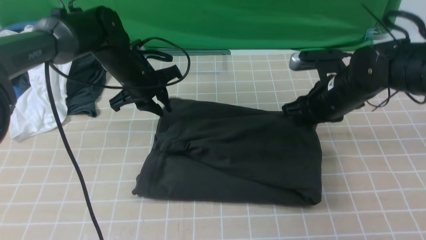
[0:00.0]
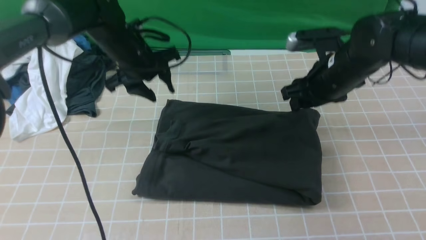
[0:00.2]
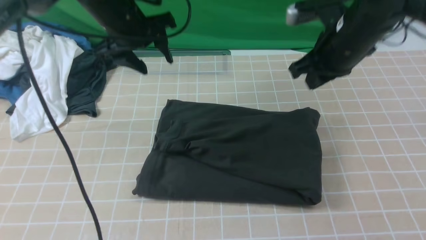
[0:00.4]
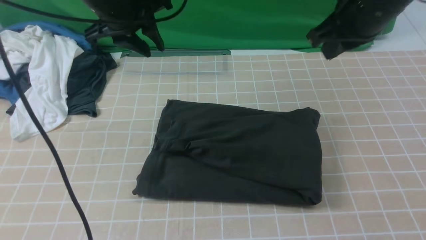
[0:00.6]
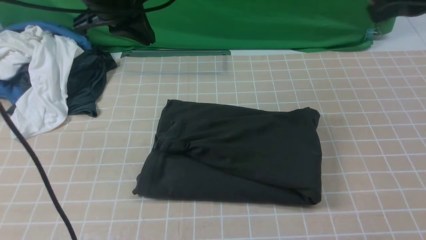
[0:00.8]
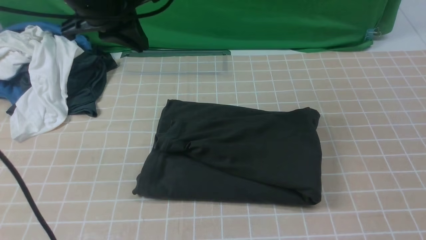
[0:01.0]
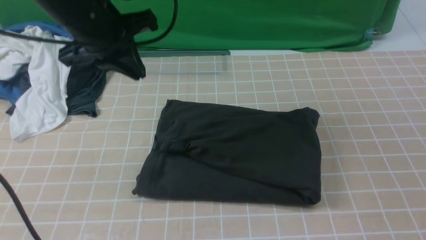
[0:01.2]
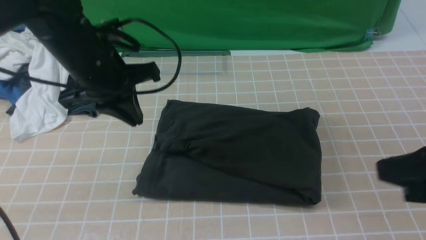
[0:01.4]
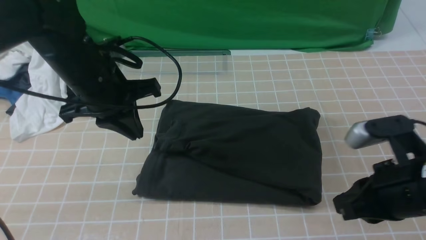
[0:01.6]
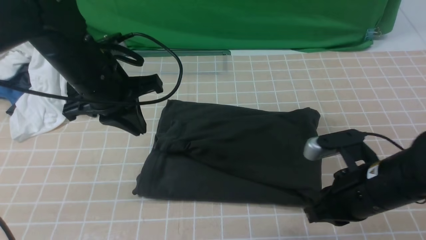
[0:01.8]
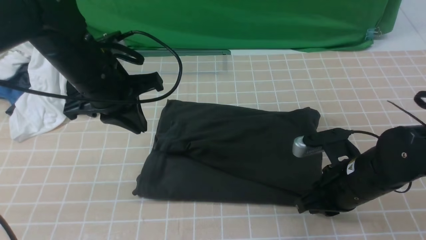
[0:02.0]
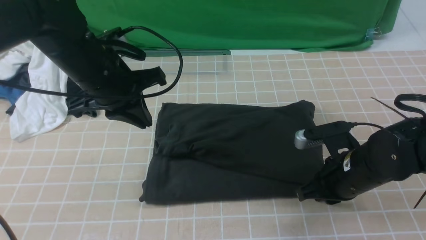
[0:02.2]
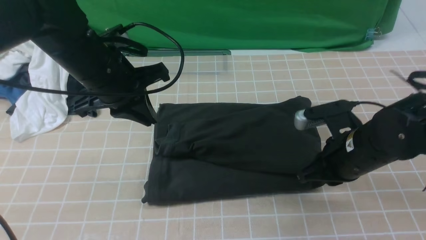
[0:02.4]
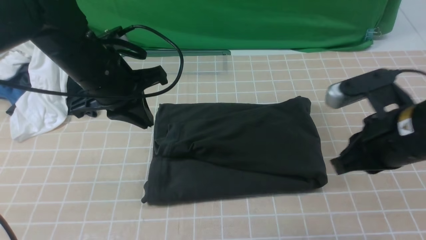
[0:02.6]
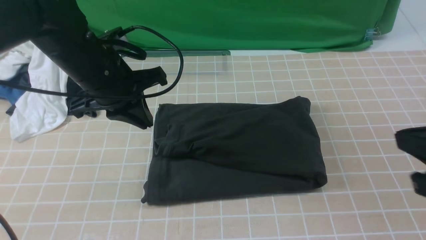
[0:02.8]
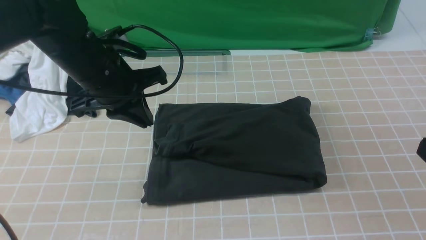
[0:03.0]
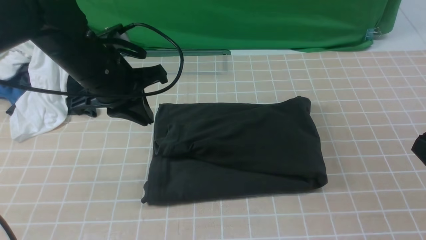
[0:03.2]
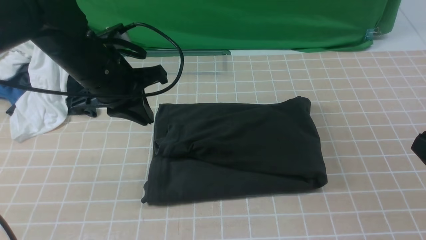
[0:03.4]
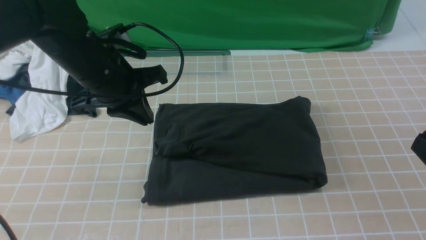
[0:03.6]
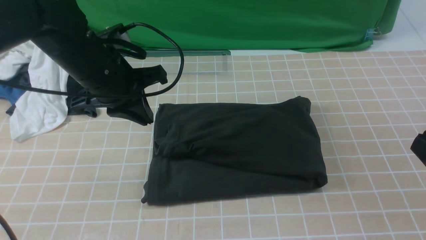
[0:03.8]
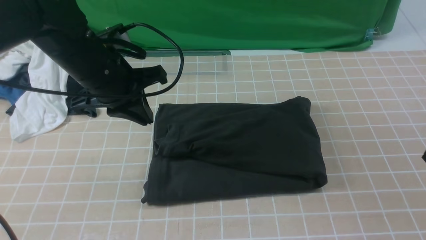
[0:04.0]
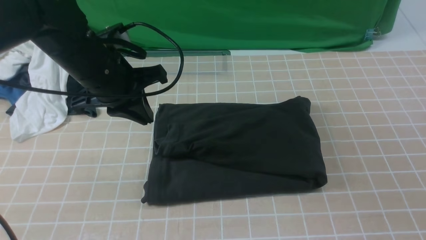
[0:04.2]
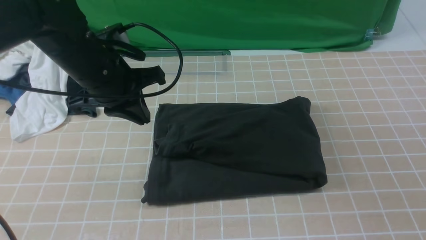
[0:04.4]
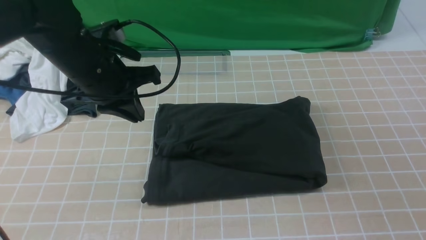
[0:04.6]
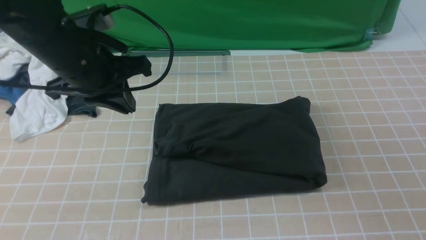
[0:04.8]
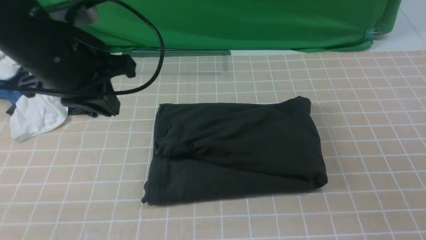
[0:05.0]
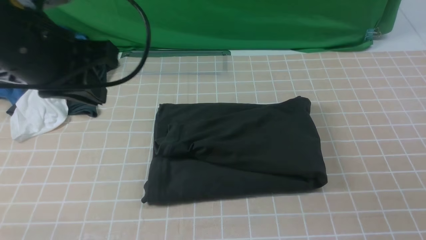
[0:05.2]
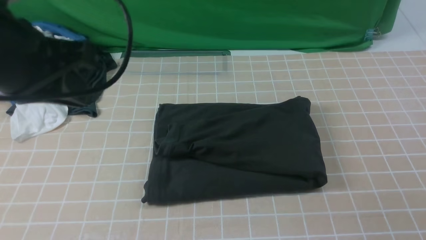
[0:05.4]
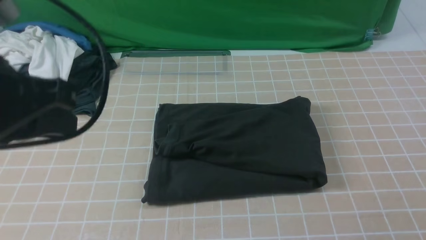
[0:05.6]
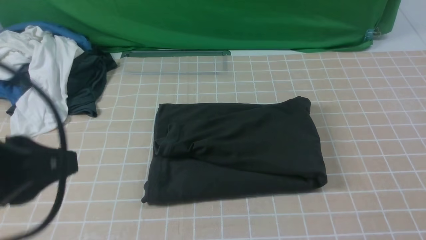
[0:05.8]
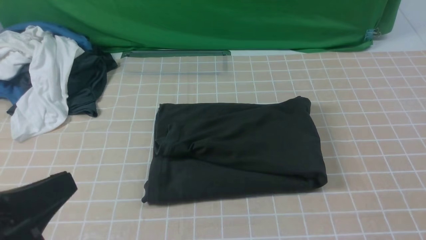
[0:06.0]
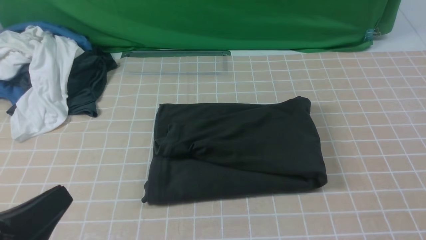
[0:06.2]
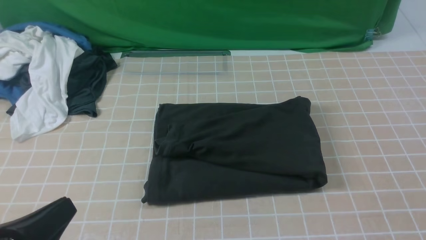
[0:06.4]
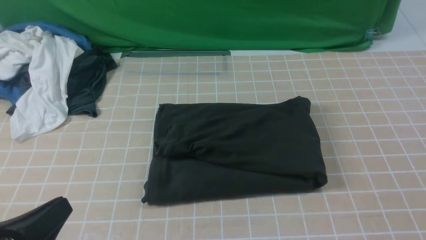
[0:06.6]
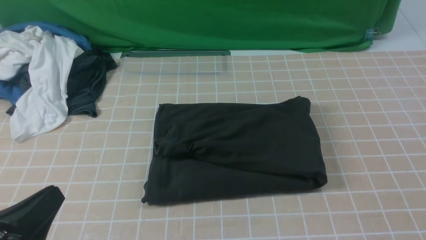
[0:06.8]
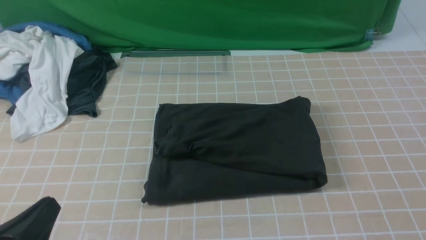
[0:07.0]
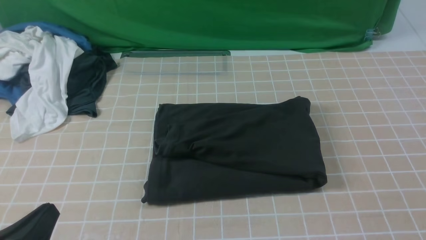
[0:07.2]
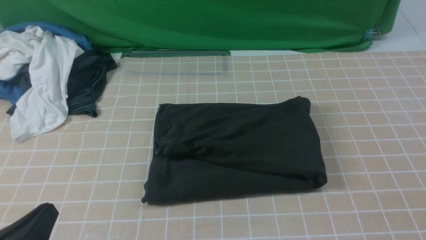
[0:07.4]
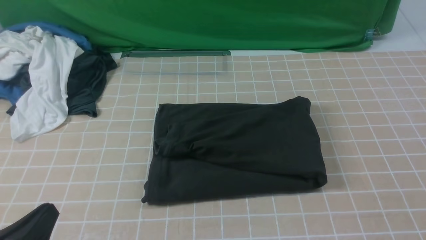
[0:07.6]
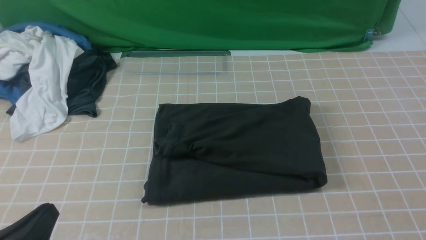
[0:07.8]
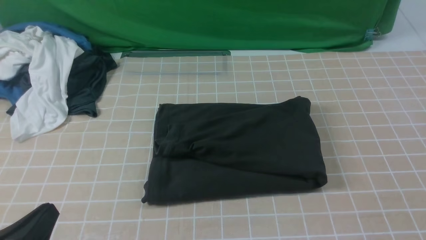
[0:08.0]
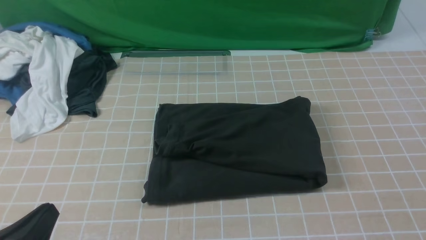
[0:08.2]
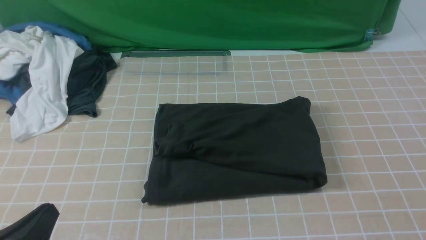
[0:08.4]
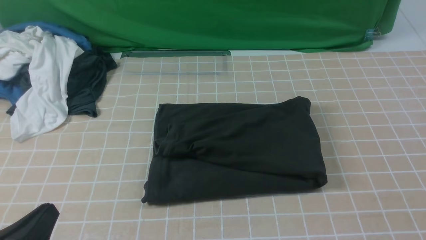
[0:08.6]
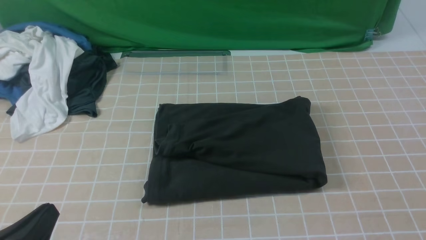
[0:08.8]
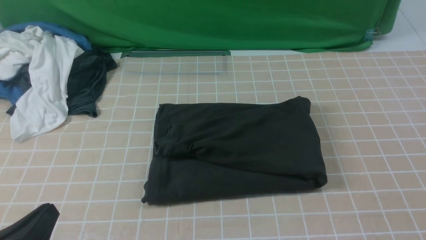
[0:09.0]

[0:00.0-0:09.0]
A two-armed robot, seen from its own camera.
0:00.0 to 0:01.6: The left gripper heads backward and upward, covering roughly 15 cm, and closes, while the right gripper travels backward by about 20 cm, and closes.
0:01.6 to 0:03.0: The right gripper moves backward and to the right, some 10 cm.
0:04.4 to 0:06.0: The left gripper shifts about 25 cm backward.
0:06.0 to 0:07.6: The left gripper shifts approximately 10 cm downward.
0:07.6 to 0:09.0: Both grippers stay about where they are.

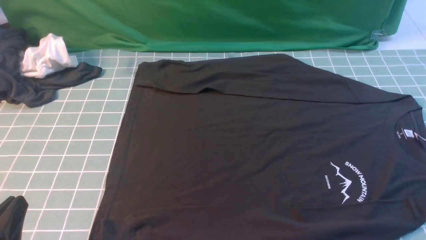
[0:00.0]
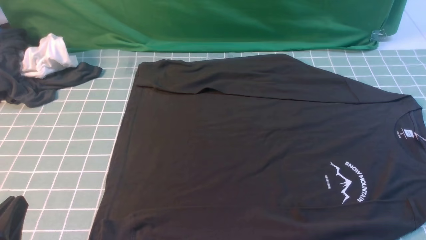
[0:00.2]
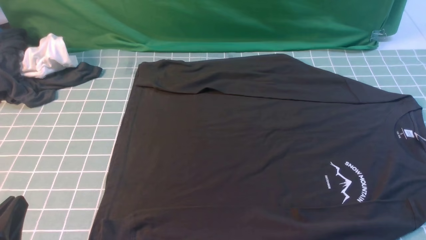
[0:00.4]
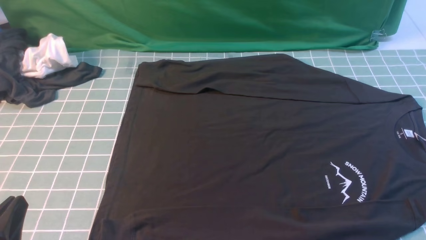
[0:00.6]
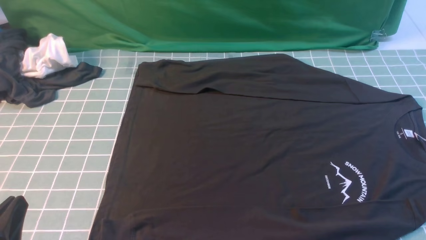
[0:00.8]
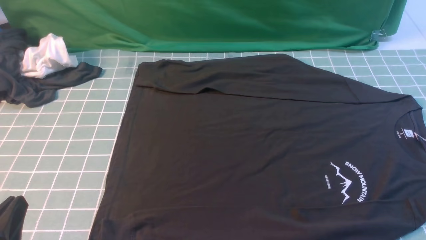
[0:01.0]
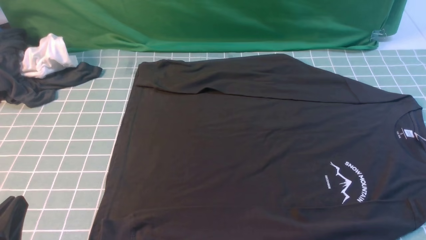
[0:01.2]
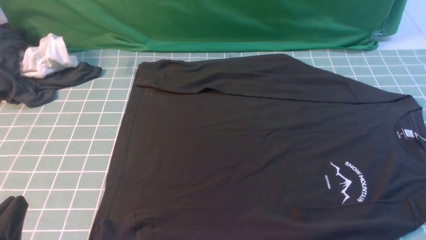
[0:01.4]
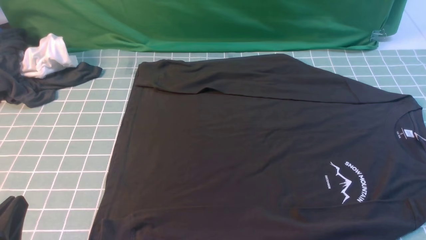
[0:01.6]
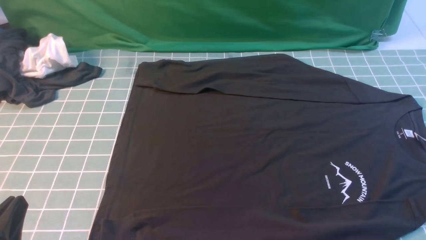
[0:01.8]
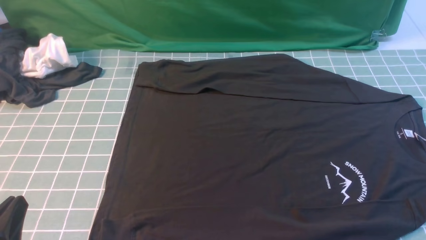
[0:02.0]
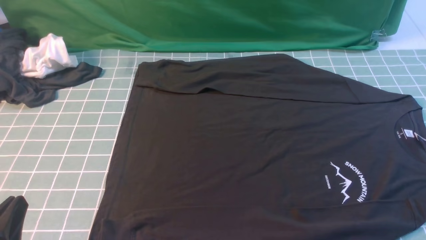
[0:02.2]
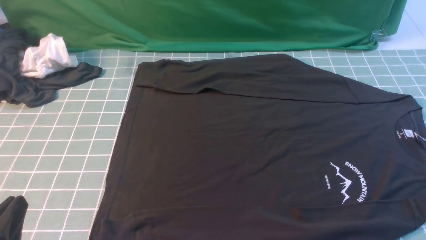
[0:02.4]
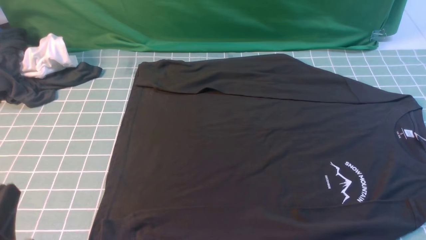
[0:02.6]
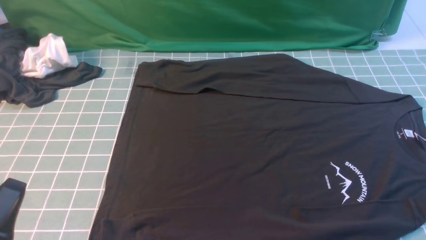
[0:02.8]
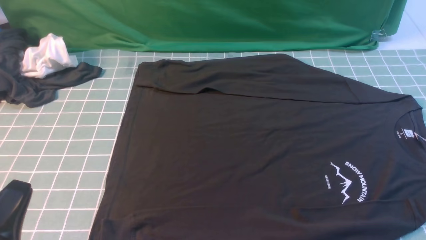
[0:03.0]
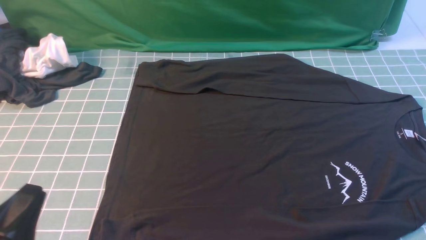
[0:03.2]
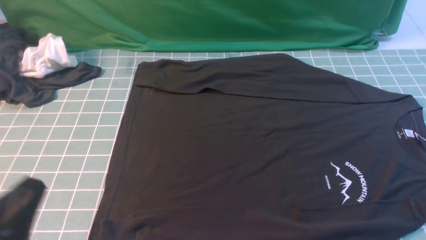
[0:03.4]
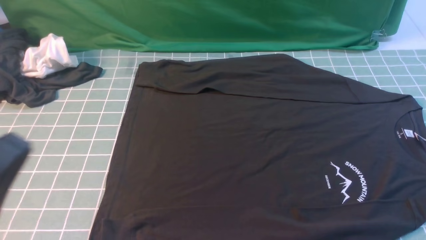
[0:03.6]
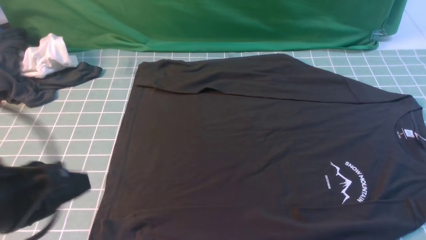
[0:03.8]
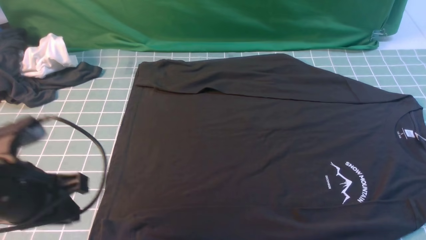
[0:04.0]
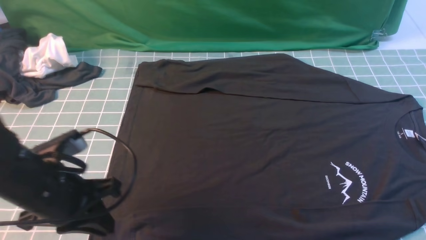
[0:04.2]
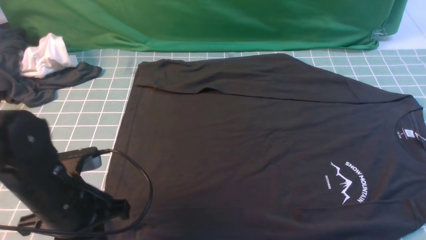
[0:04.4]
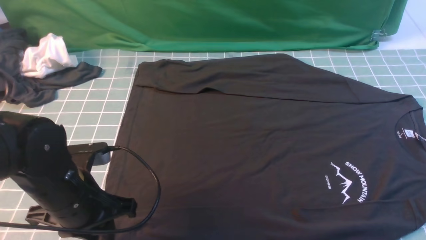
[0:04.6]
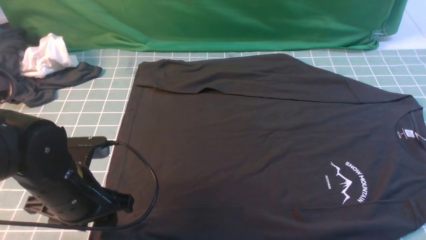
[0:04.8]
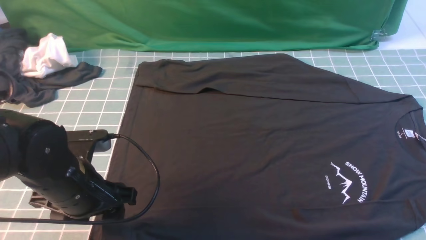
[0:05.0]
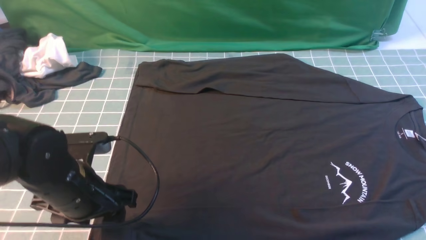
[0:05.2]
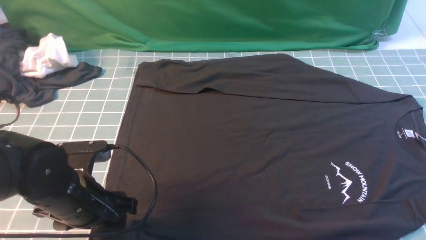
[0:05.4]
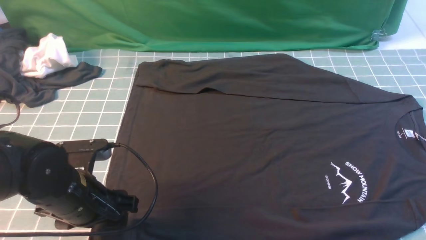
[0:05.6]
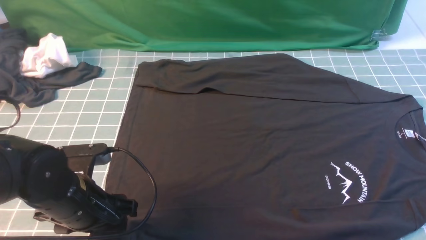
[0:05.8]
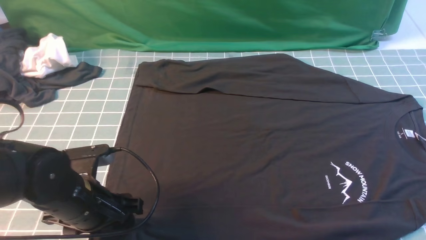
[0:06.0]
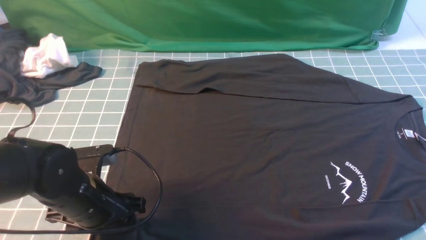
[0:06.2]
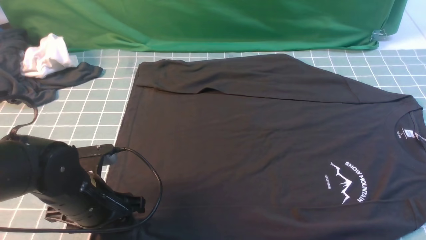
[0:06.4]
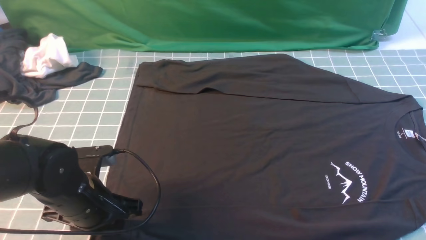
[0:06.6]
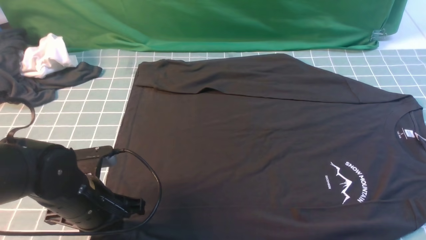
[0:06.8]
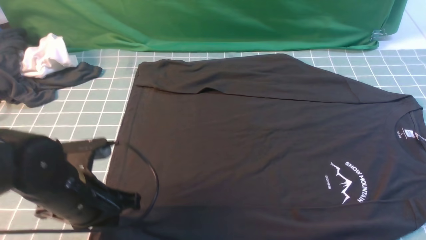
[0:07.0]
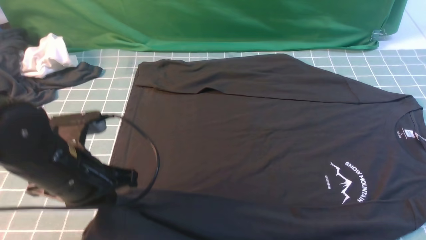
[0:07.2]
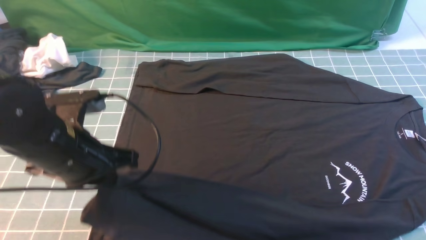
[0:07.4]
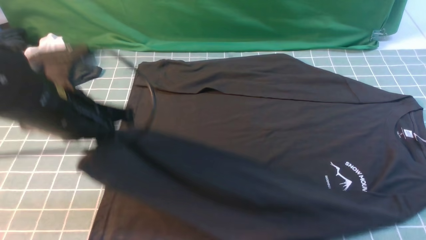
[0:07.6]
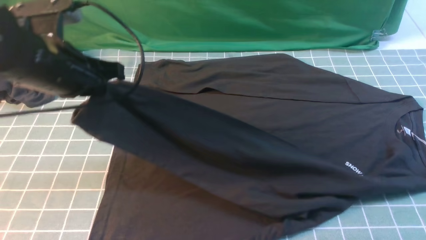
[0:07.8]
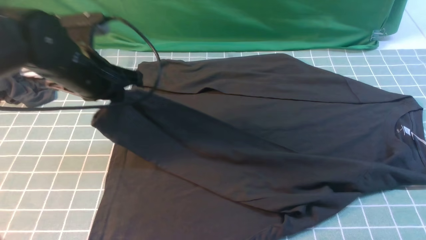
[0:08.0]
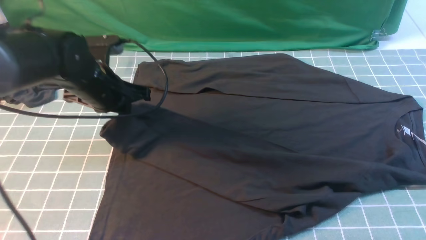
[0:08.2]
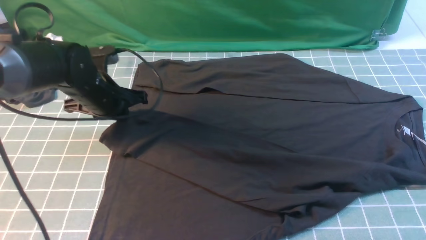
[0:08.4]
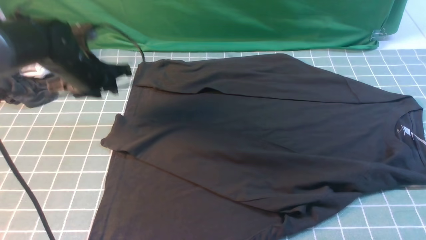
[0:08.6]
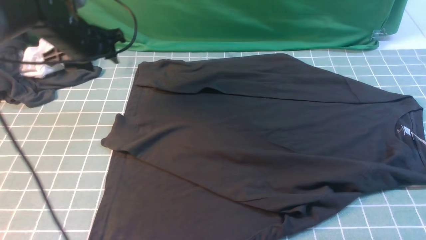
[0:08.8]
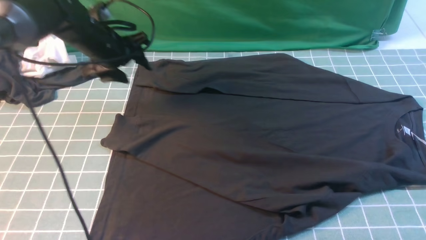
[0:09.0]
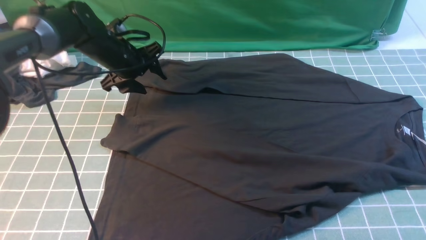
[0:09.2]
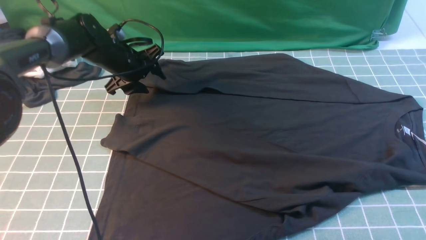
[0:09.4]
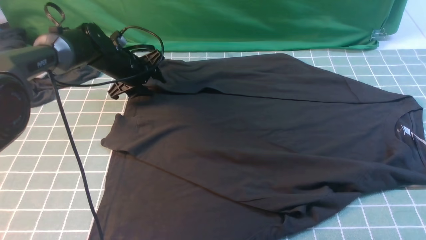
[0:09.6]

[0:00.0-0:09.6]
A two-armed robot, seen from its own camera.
Step, 0:00.0 to 0:07.2: use the left arm to clamp the cuff closest to it.
Step, 0:07.4 to 0:08.4: use the left arm to drag and place the cuff at the centered position on the left edge of the fabric.
0:00.0 to 0:01.6: Both grippers stay put.
0:03.2 to 0:04.8: The left gripper is displaced forward by roughly 15 cm, and opens.
0:04.8 to 0:06.4: The grippers move only a little.
0:06.4 to 0:08.0: The left gripper shifts approximately 15 cm forward and upward, and closes up.
0:08.0 to 0:09.6: The left gripper moves forward and downward, some 20 cm, and opens up.
